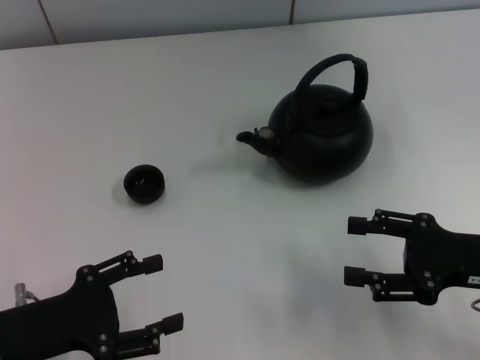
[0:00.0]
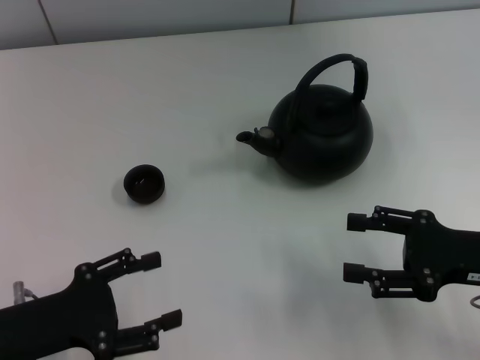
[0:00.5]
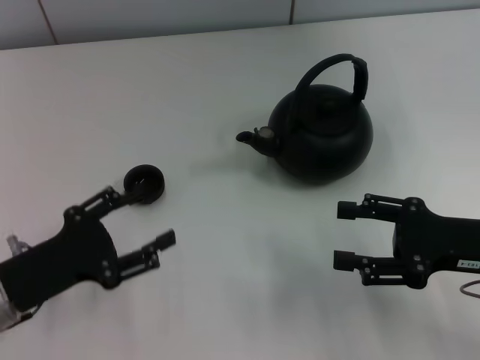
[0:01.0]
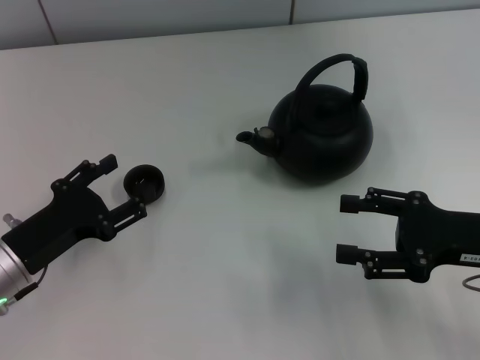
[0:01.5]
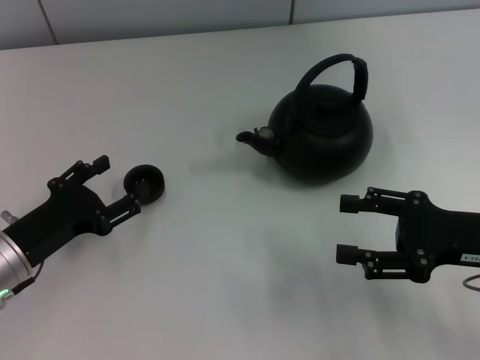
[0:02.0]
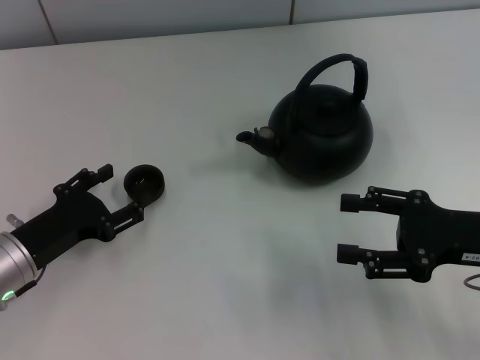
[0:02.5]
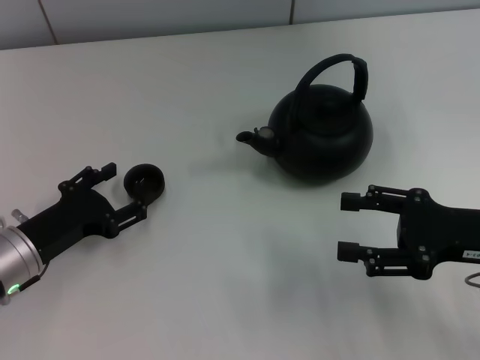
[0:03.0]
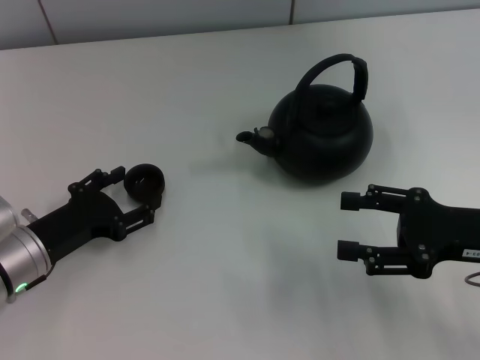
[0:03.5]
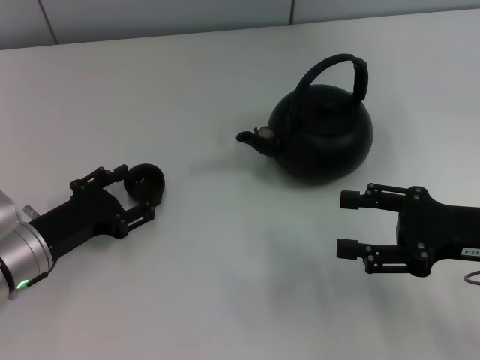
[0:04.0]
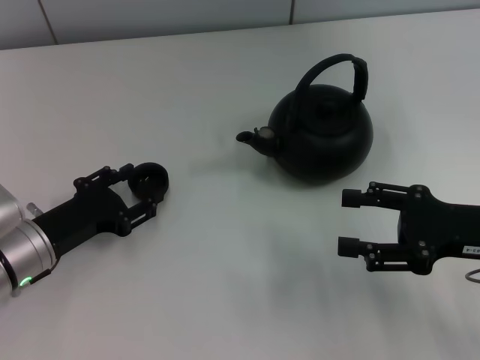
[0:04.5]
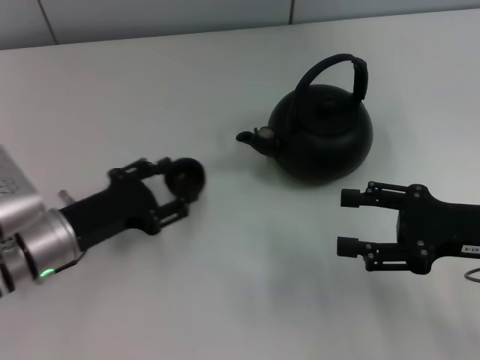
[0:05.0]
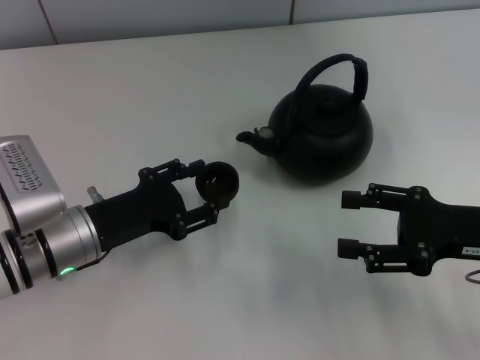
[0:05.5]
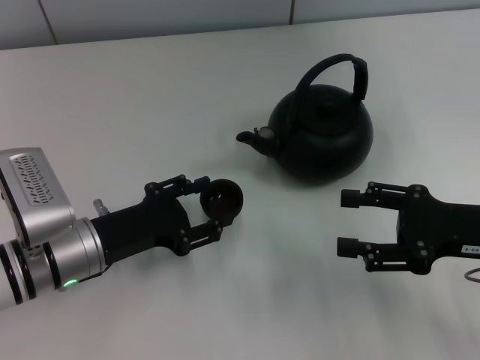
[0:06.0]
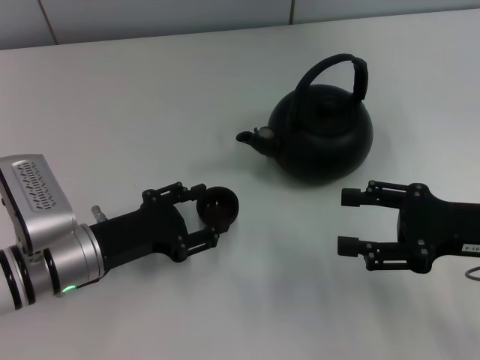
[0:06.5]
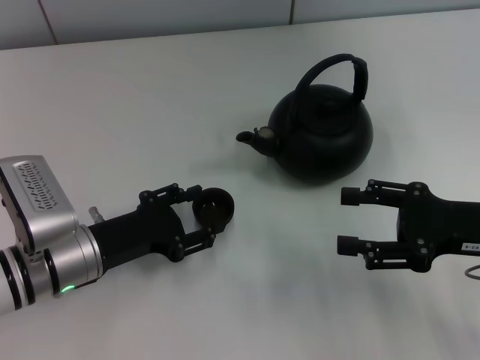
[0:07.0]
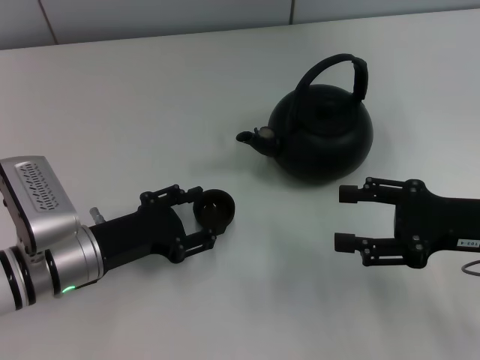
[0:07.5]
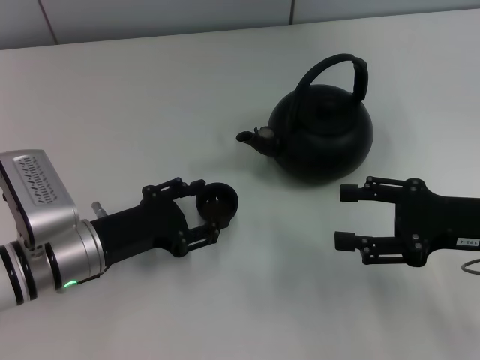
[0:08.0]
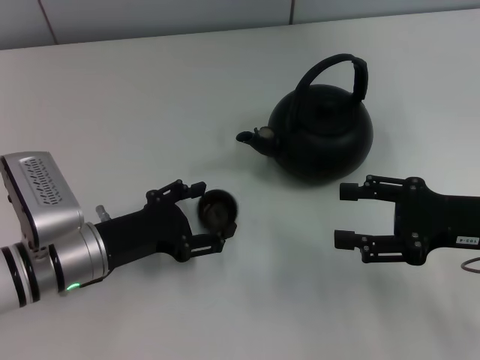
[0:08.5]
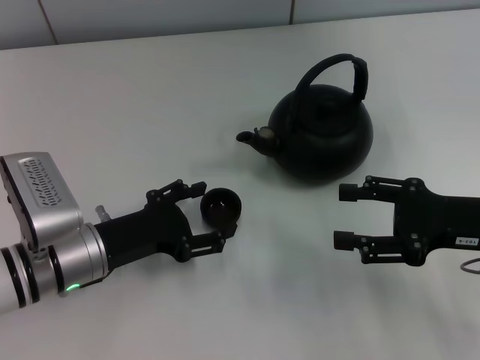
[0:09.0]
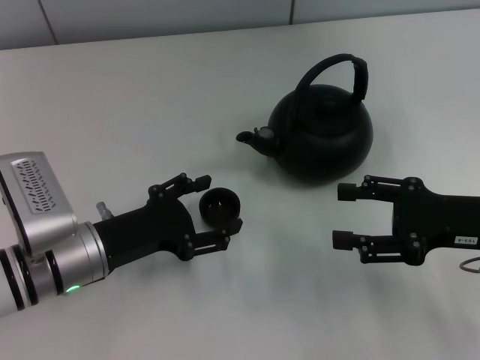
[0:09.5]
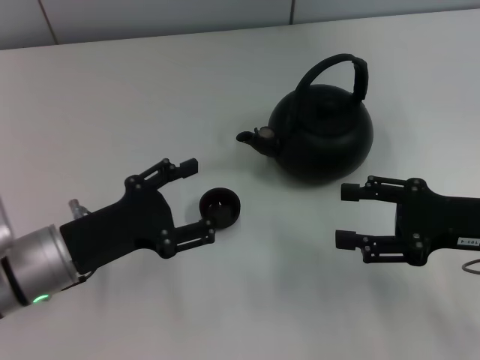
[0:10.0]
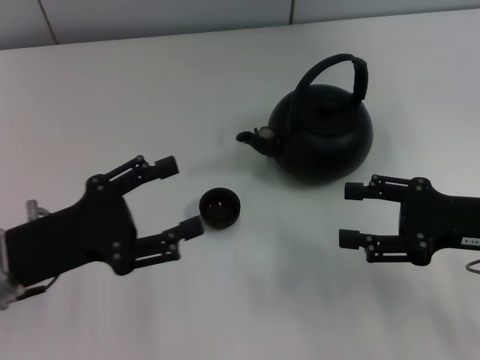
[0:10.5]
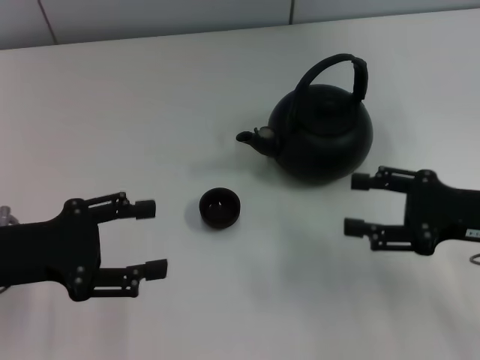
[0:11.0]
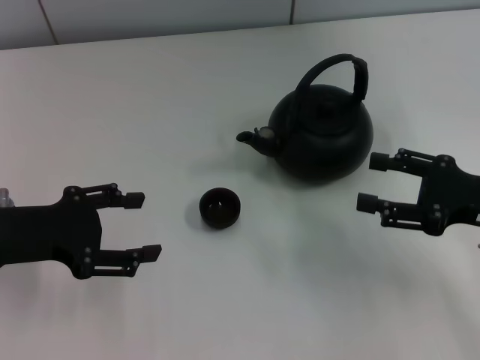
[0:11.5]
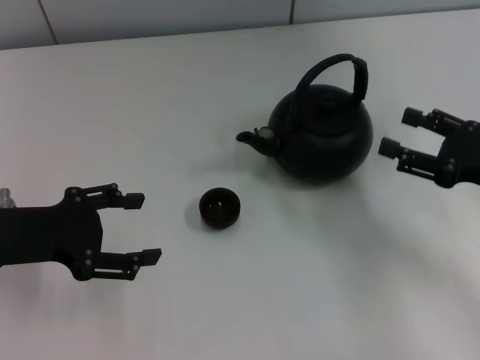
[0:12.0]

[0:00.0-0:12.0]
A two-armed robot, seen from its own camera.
Task of the whole recording: Grasp the handle of the teapot with one hand and pour tea into the teacup.
Step, 0:00.0 to 0:05.5: Pick up the teacup with the left gripper.
Step, 0:06.0 to 0:10.0: Place the teacup in the center of view with the left gripper.
0:00.0 to 0:02.0: The left gripper heads forward, covering roughly 5 cm.
0:02.0 to 0:04.0: The grippers stay close to where they were, moving slightly.
0:04.0 to 0:06.0: The left gripper heads to the right, covering roughly 5 cm, and closes its fingers.
0:06.0 to 0:08.0: Both grippers stay about where they are.
0:08.0 to 0:10.0: The left gripper opens up.
0:10.0 to 0:12.0: The left gripper shifts some 10 cm upward and to the left, and closes, then reopens.

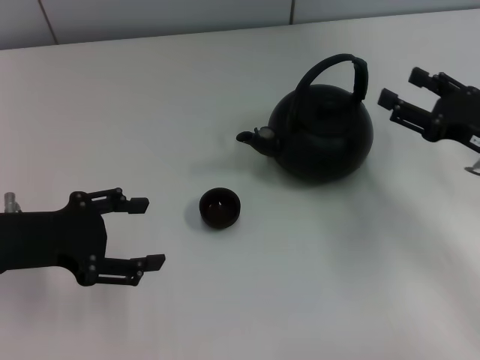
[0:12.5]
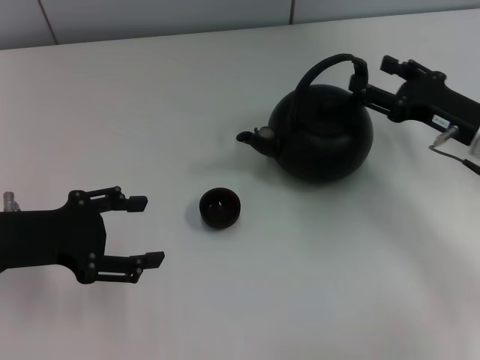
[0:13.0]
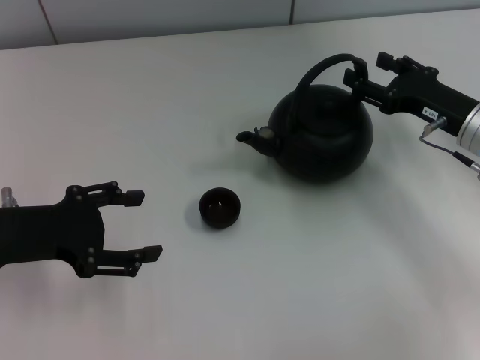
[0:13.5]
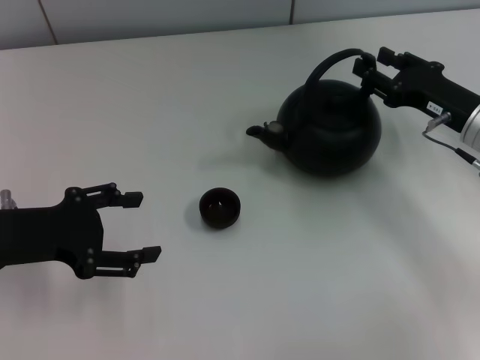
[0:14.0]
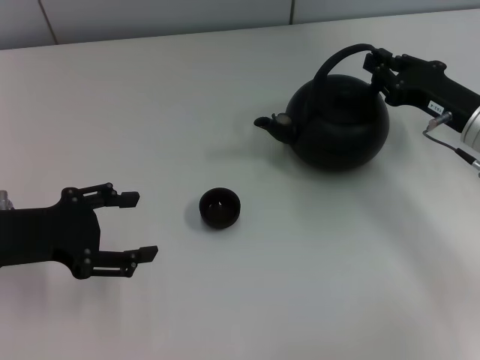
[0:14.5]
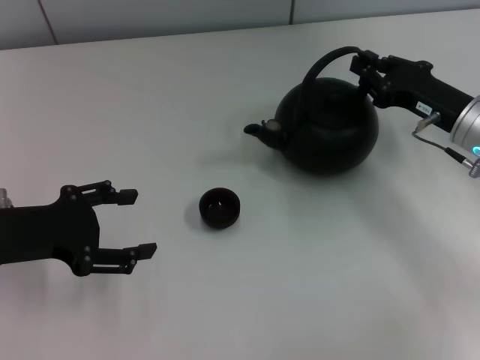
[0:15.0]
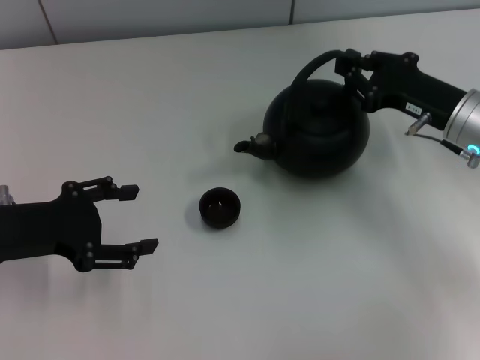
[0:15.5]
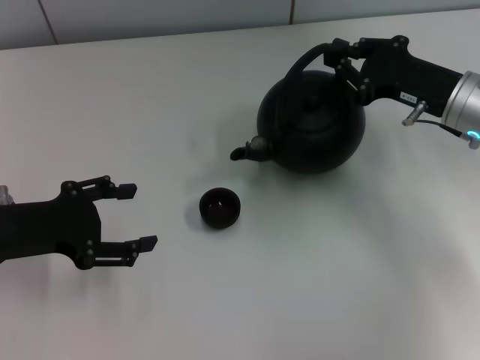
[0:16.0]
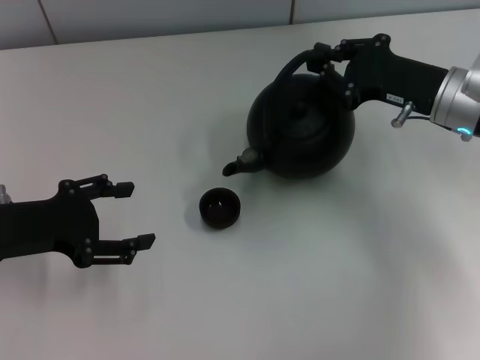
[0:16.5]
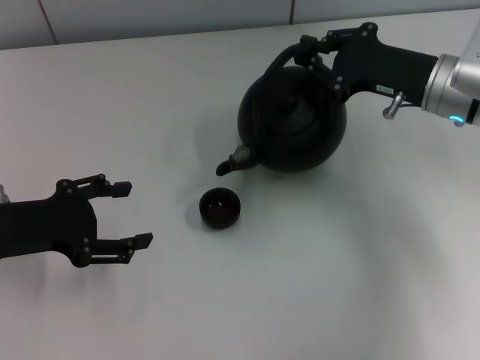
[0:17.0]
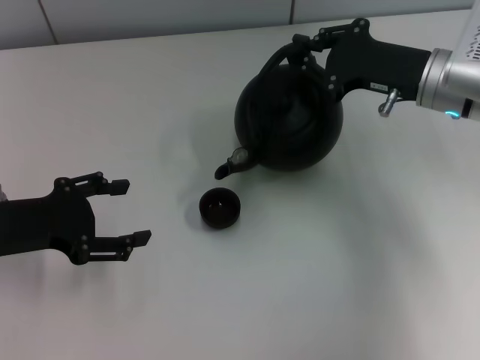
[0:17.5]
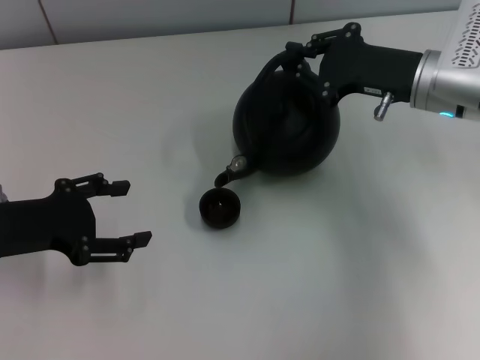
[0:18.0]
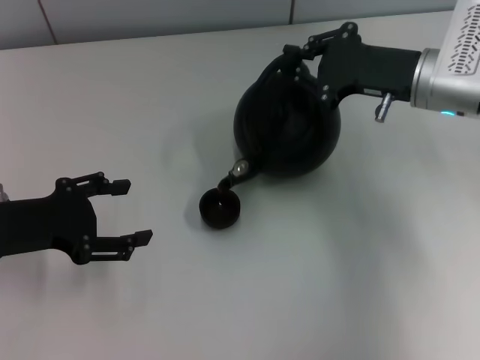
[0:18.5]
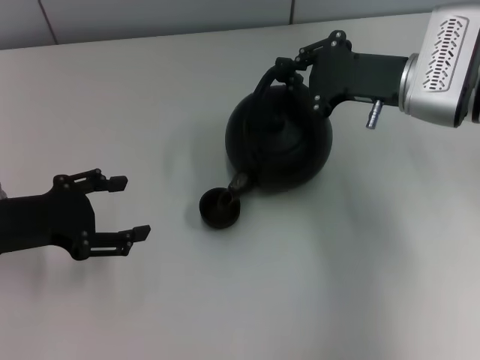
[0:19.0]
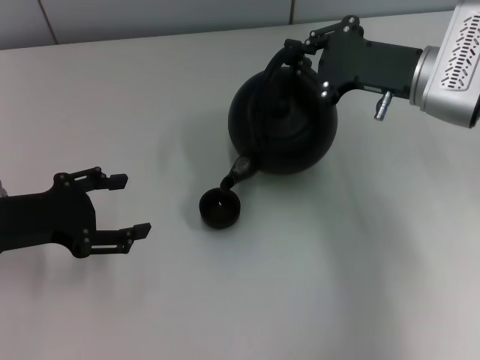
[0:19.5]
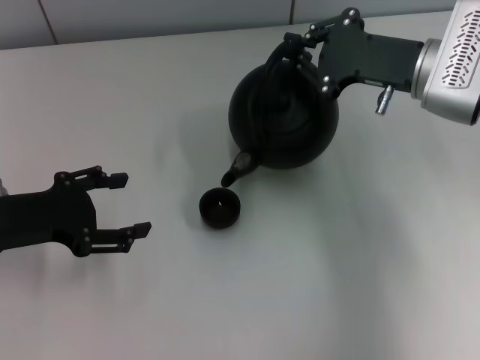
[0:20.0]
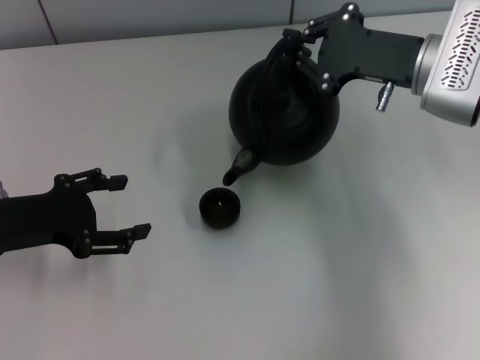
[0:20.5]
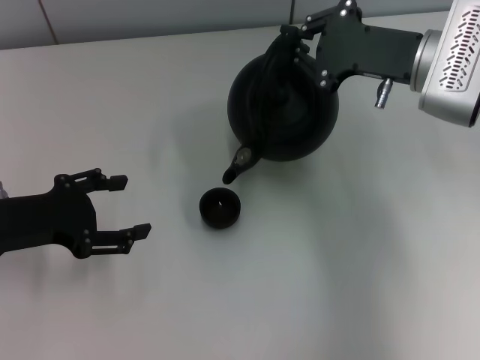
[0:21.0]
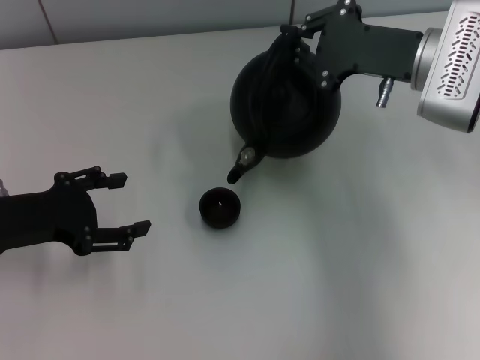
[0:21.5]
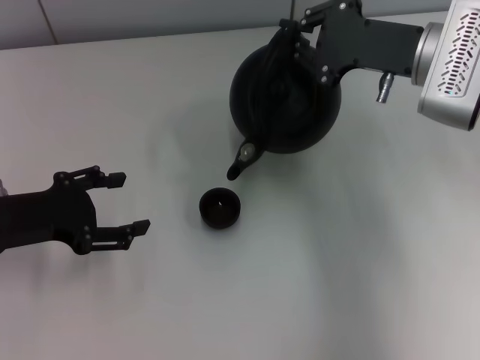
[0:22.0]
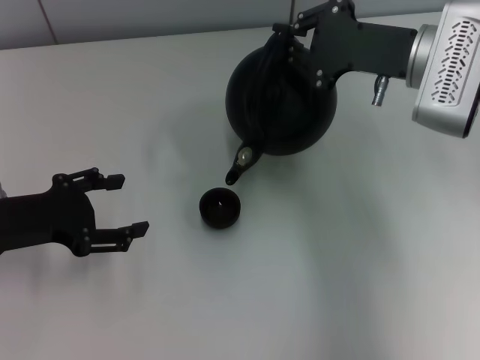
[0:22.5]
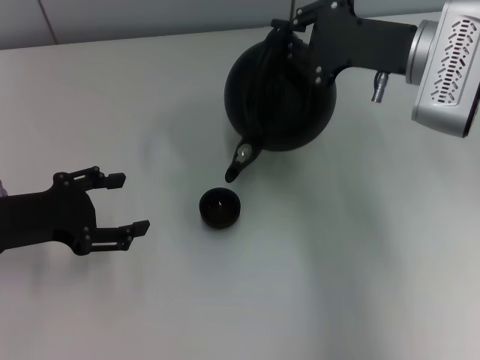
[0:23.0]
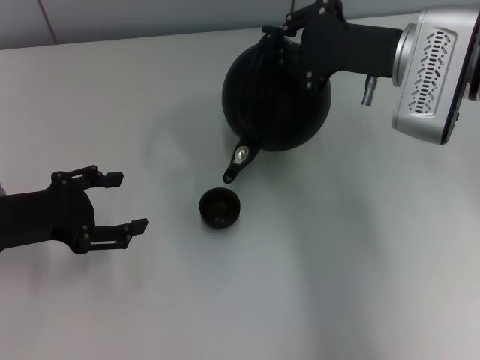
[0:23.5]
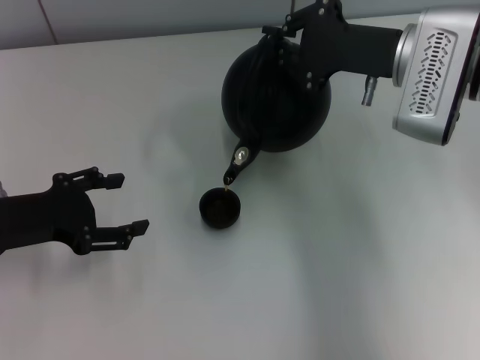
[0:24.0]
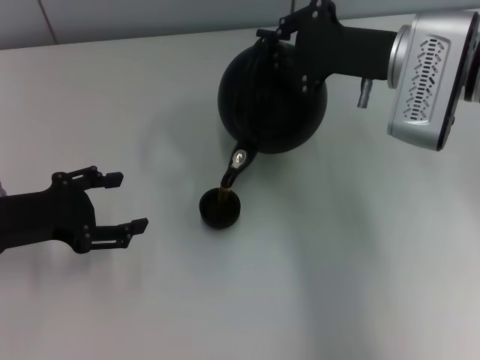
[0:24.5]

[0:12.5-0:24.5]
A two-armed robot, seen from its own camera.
Task of the whole recording: Grasp the handle of the teapot with one hand and pour tea into the teacup.
Step, 0:12.5 to 0:16.5: Pick up the teapot with the right gripper.
0:12.5 to 0:14.5: The right gripper moves roughly 5 cm, and closes.
0:14.5 to 0:16.5: The right gripper shifts by roughly 5 cm.
0:16.5 to 0:18.5: The grippers stay close to where they were, moving slightly.
0:18.5 to 0:20.5: There are only small adjustments of the grippers.
0:20.5 to 0:24.5: There are only small adjustments of the grippers.

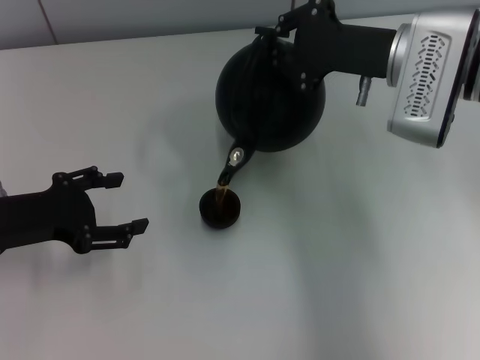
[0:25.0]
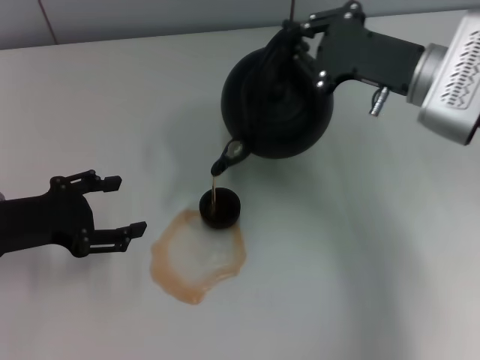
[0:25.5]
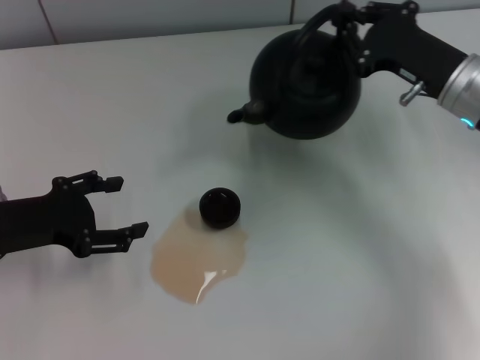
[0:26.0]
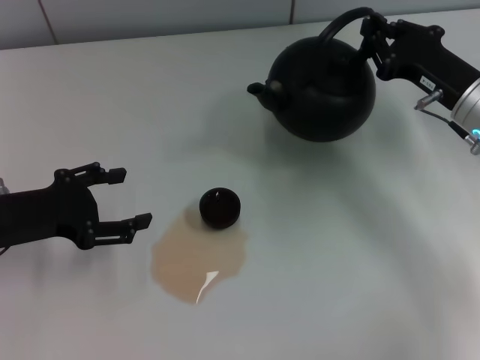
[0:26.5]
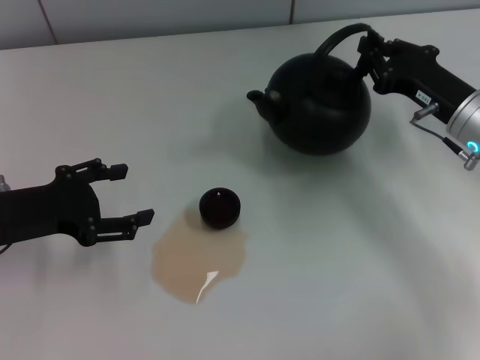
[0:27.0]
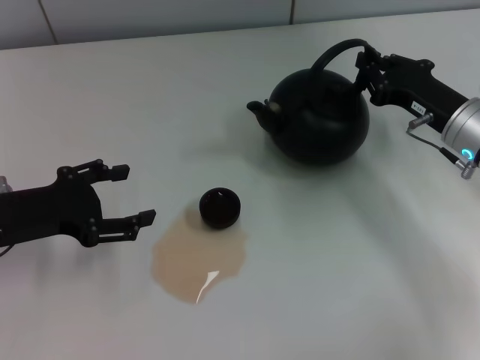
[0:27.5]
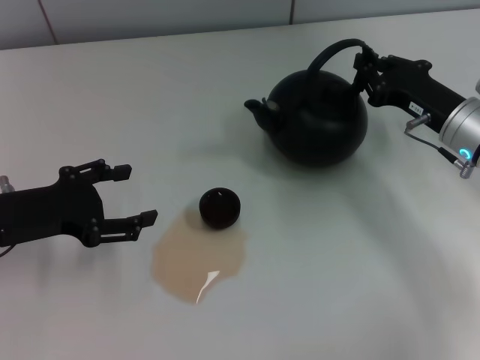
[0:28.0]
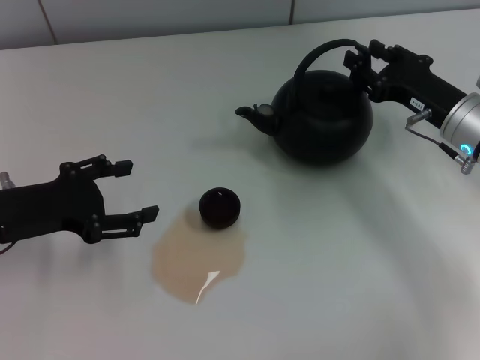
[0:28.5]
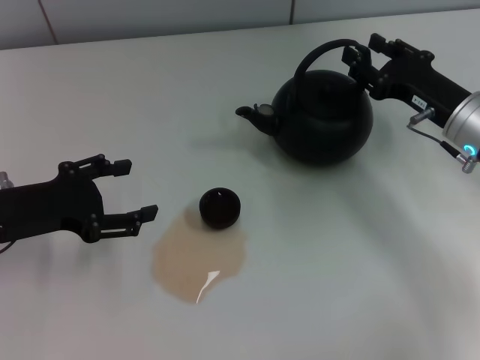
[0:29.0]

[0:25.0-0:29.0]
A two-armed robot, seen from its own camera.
Task of the whole recording: Grasp the handle of the teapot with one hand and pour tea into the teacup.
0:25.0 to 0:27.0: The right gripper travels downward and to the right by approximately 10 cm.
0:27.0 to 0:29.0: The right gripper opens its fingers.
